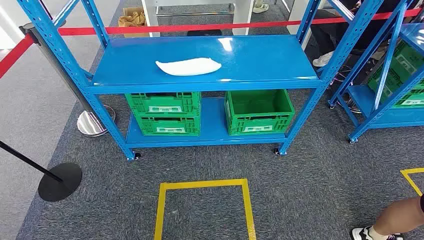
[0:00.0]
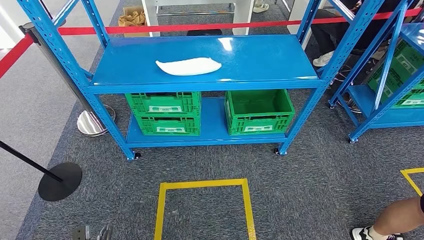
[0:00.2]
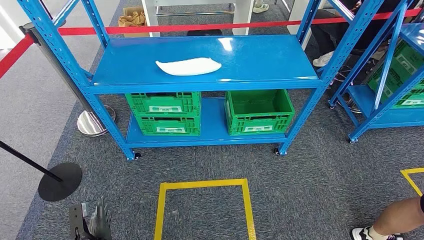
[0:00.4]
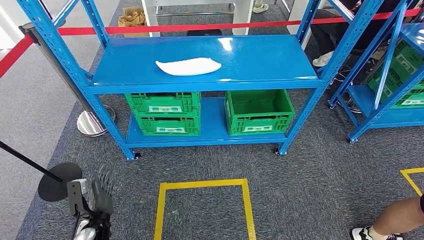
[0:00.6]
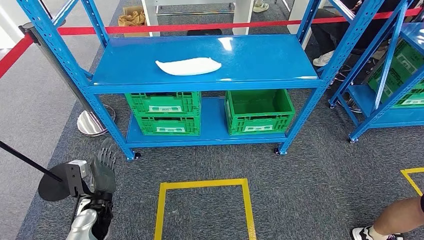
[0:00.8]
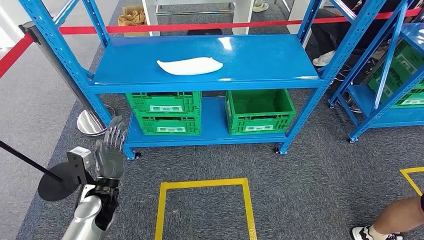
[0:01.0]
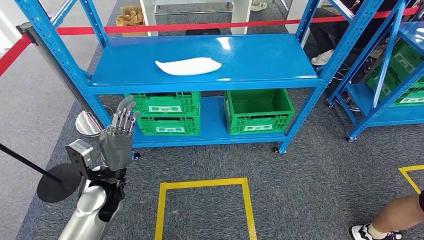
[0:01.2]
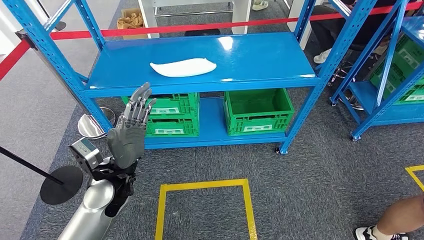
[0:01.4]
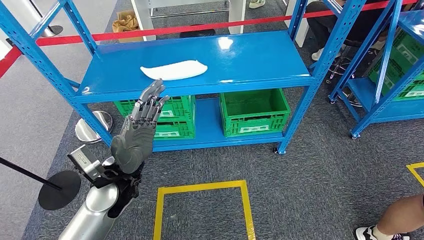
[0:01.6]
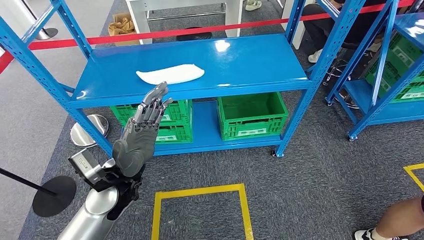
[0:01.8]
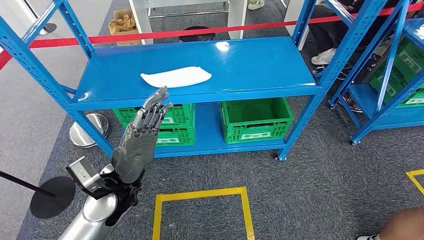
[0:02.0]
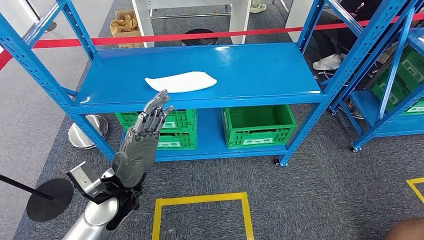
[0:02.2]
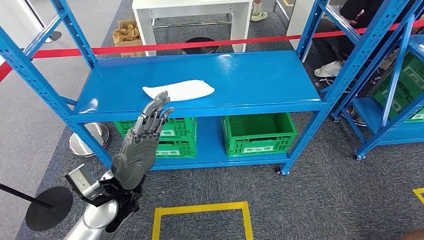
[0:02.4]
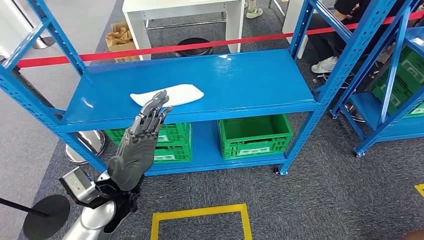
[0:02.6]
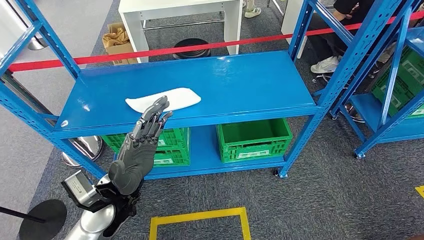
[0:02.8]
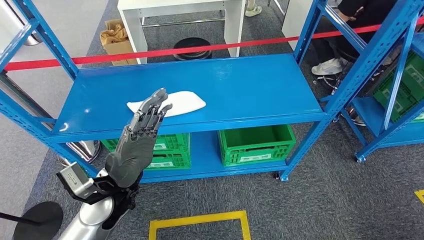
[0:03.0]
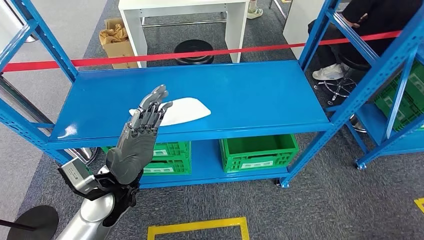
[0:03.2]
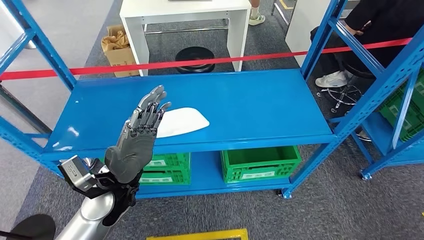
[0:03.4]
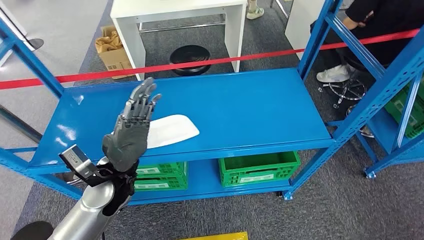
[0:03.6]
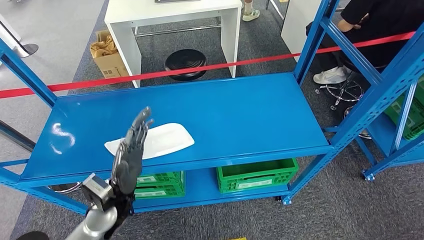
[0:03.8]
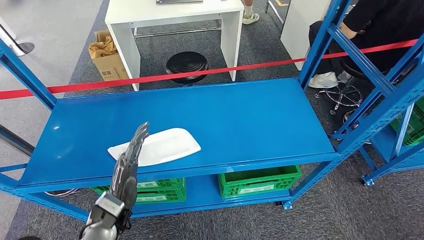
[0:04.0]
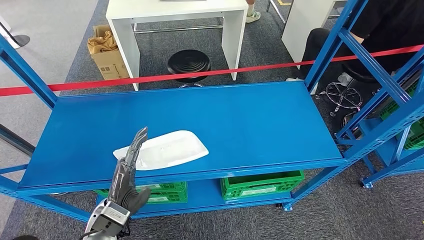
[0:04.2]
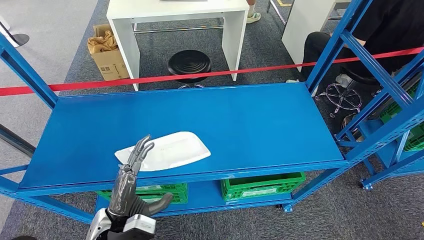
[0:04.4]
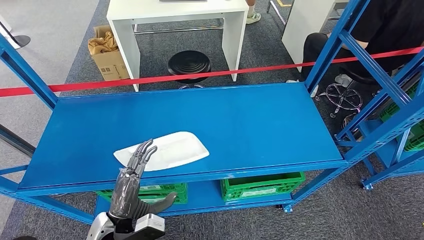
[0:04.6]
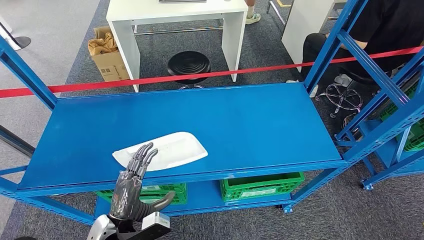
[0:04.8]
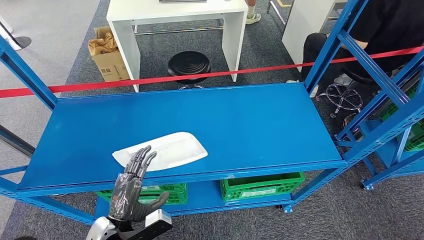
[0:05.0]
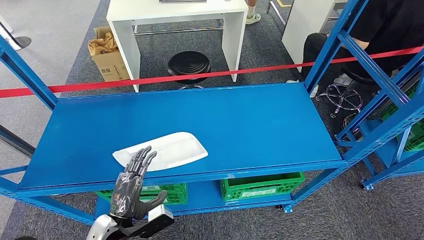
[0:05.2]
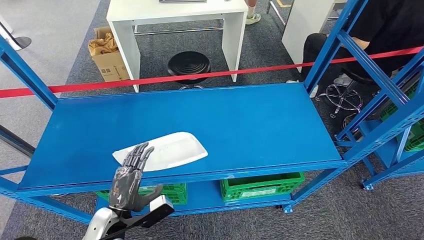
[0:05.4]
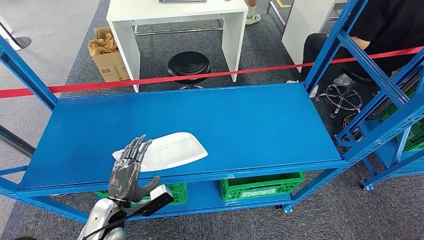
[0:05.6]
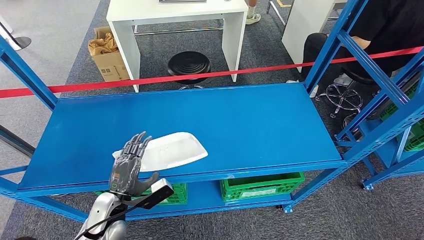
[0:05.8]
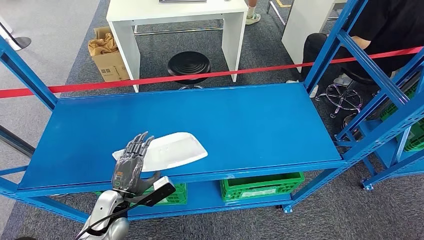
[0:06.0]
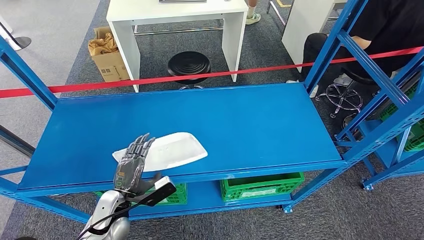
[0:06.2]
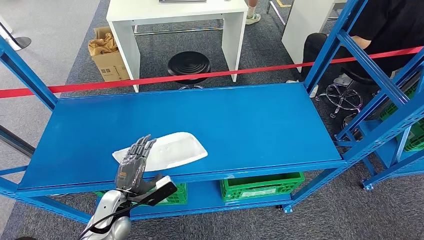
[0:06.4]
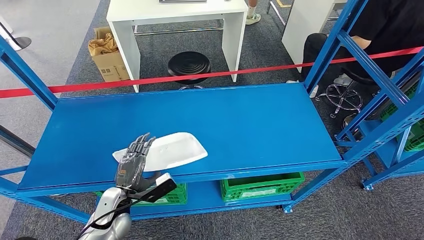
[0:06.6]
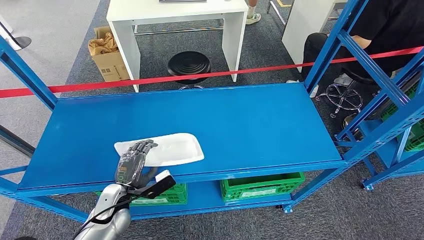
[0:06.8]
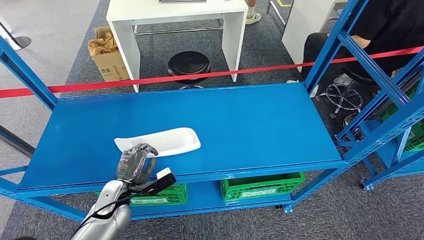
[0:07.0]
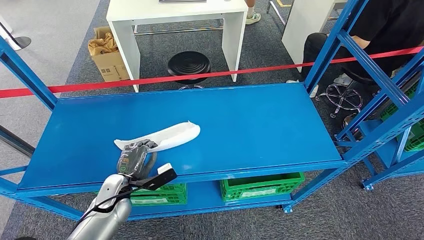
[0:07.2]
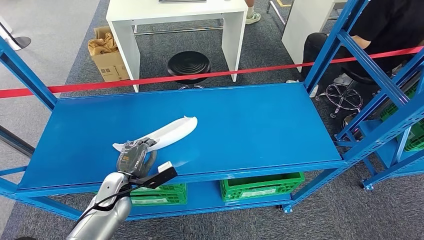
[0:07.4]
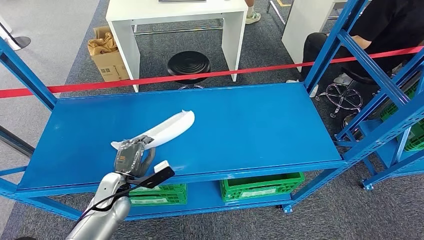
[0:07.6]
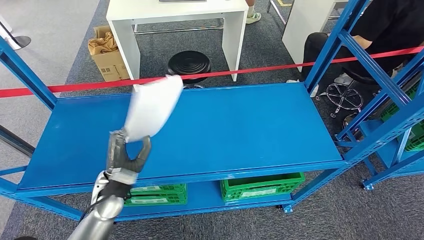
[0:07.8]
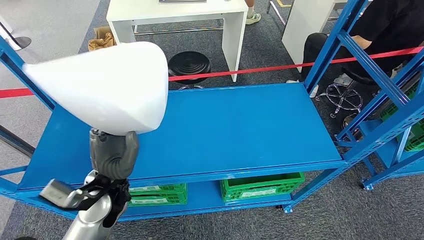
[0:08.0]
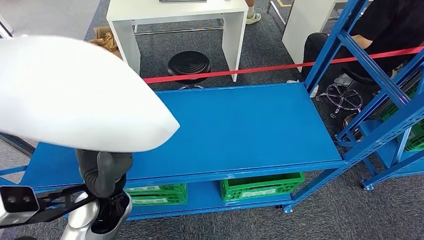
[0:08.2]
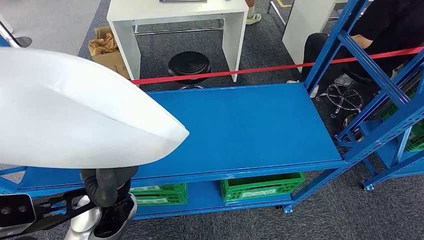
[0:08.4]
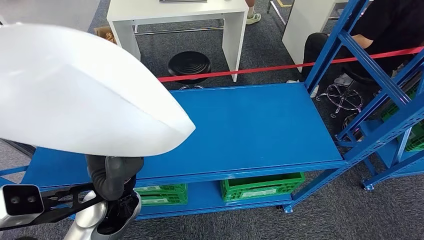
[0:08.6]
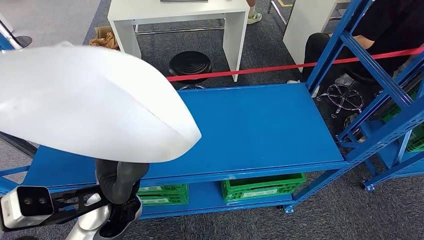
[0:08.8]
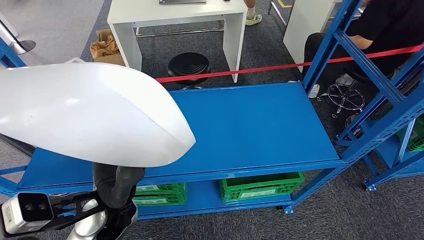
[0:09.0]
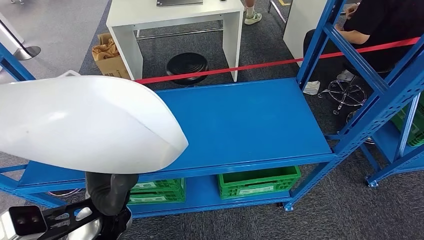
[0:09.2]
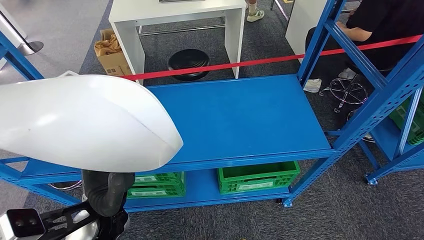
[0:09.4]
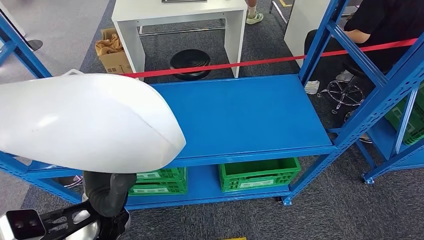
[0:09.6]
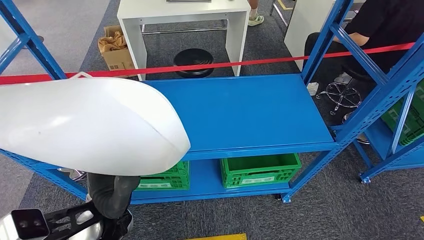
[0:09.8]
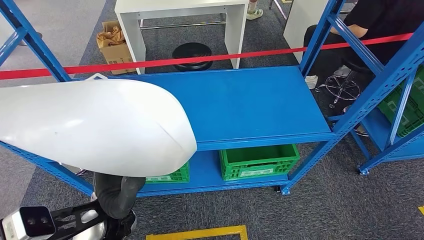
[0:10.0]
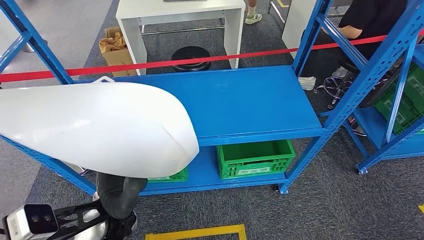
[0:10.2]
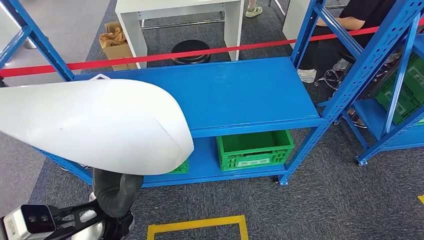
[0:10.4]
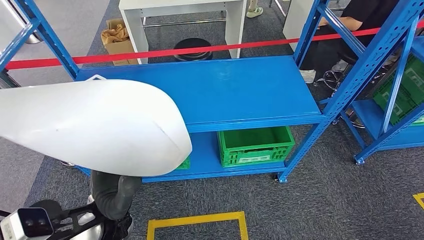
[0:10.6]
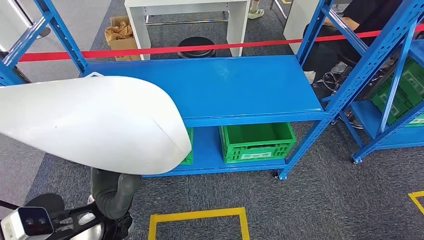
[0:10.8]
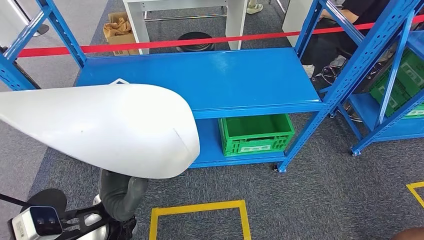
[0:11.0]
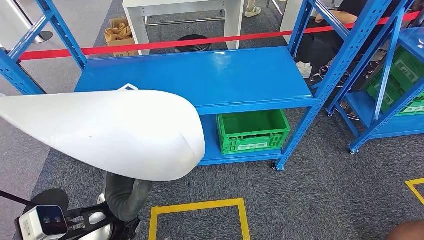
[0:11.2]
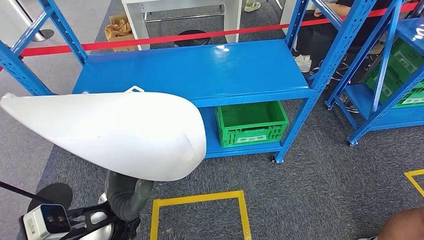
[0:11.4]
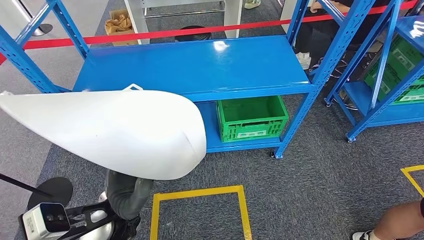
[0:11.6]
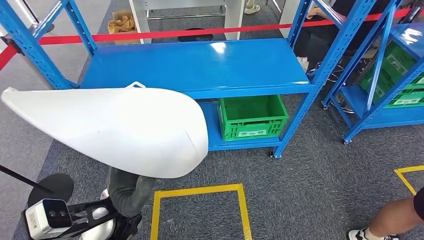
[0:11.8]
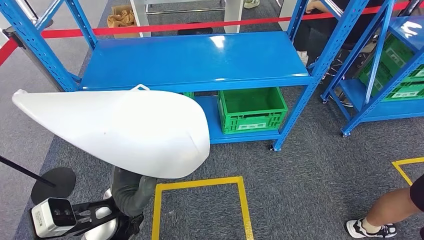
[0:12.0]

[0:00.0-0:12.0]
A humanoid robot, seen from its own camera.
Step, 0:00.0 to 0:07.0: Pick up the small component from the shelf.
0:04.4 to 0:06.0: The left hand moves forward, roughly 5 cm.
0:06.0 to 0:07.6: The left hand is displaced forward by roughly 5 cm.

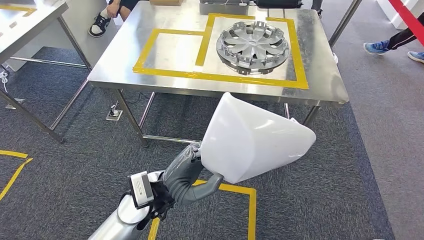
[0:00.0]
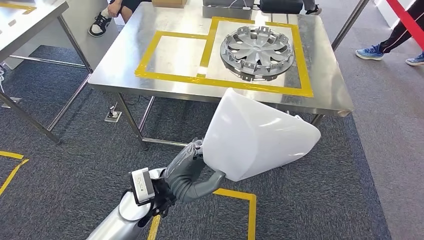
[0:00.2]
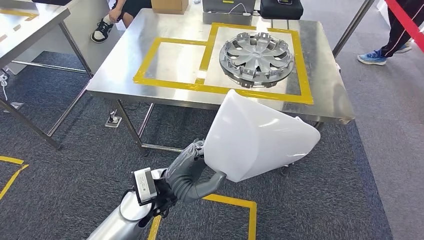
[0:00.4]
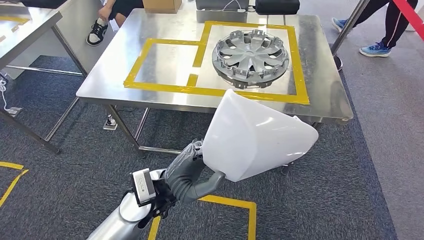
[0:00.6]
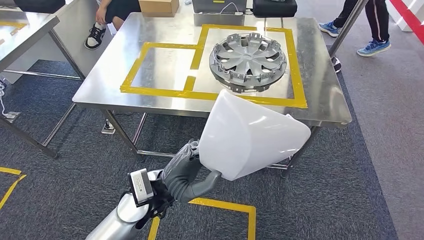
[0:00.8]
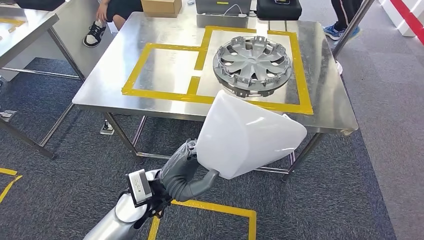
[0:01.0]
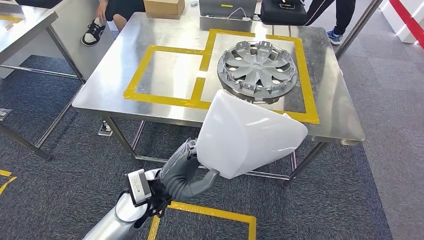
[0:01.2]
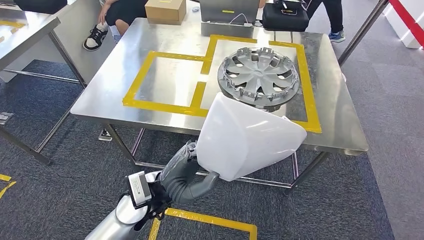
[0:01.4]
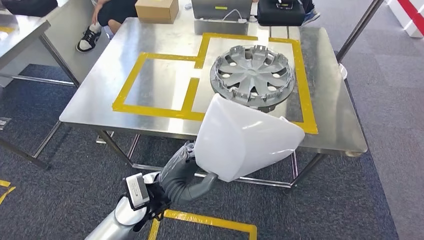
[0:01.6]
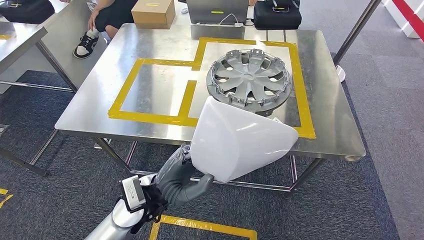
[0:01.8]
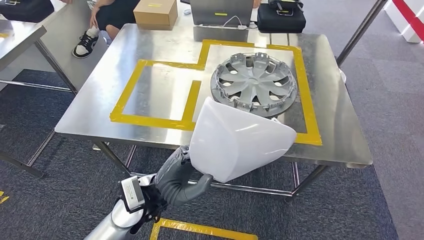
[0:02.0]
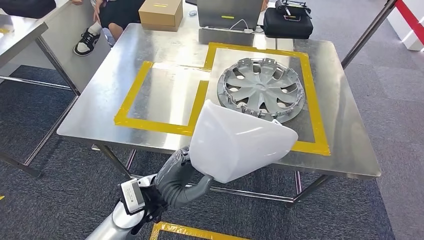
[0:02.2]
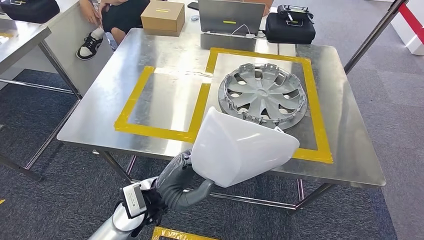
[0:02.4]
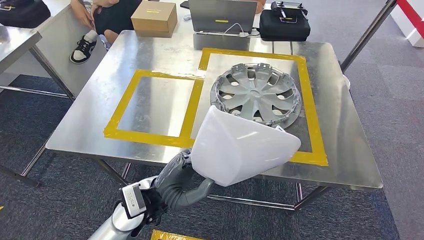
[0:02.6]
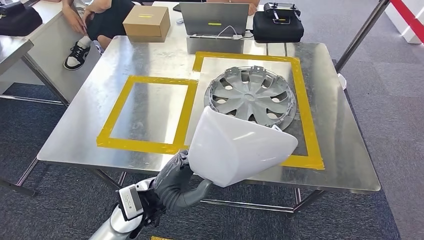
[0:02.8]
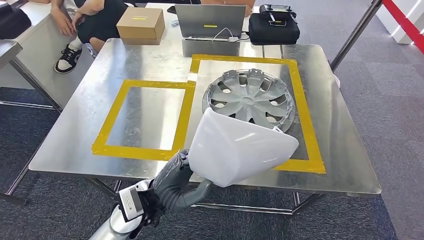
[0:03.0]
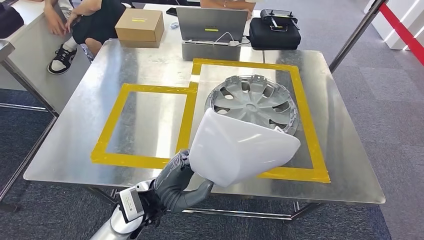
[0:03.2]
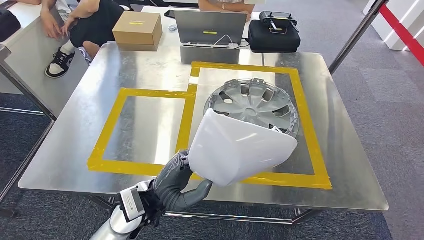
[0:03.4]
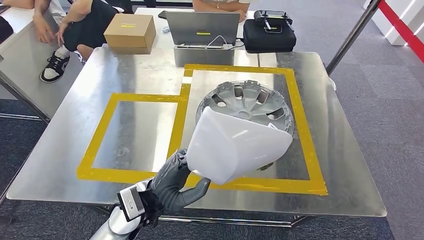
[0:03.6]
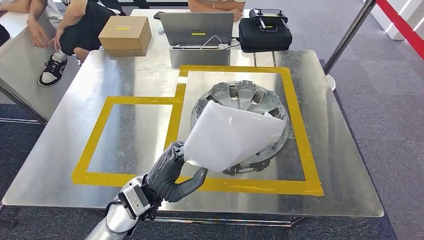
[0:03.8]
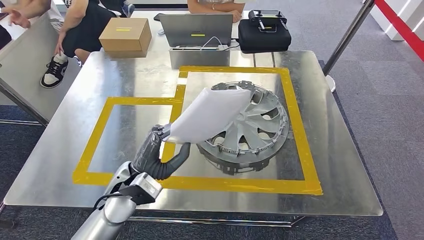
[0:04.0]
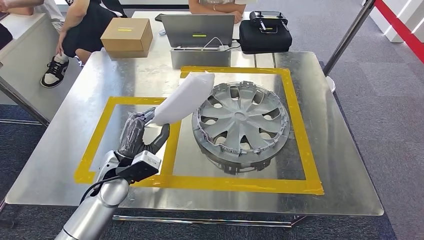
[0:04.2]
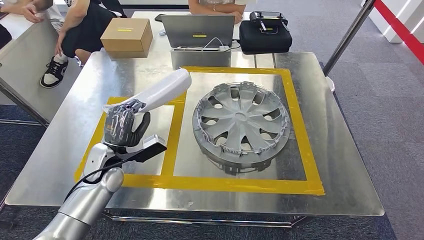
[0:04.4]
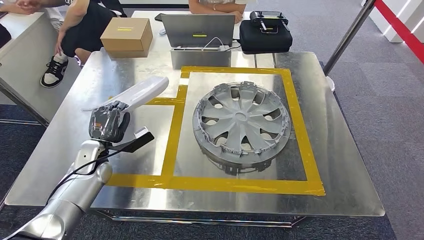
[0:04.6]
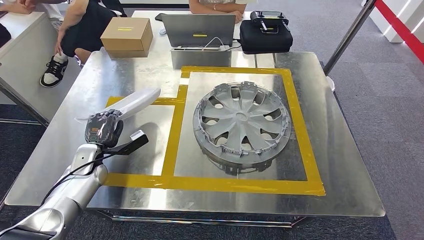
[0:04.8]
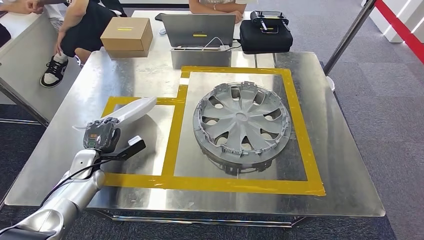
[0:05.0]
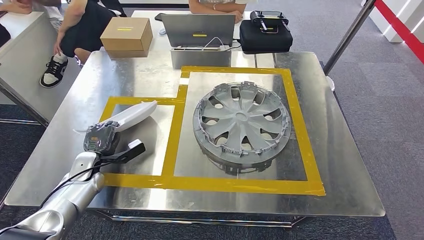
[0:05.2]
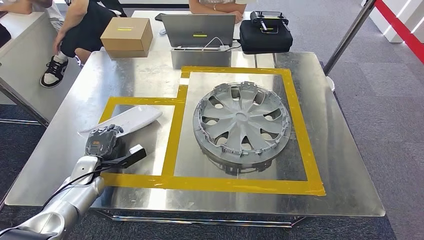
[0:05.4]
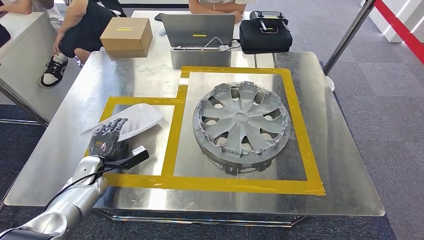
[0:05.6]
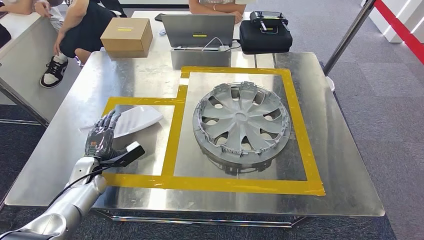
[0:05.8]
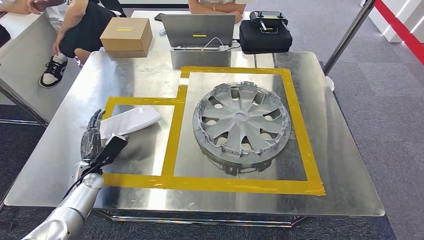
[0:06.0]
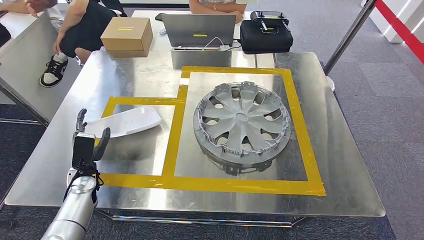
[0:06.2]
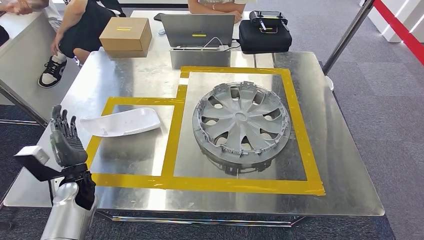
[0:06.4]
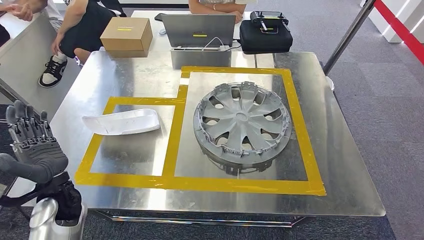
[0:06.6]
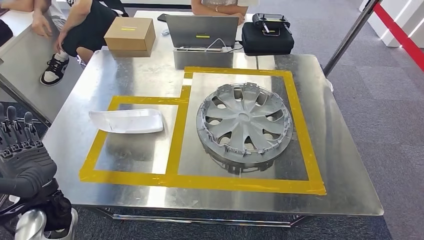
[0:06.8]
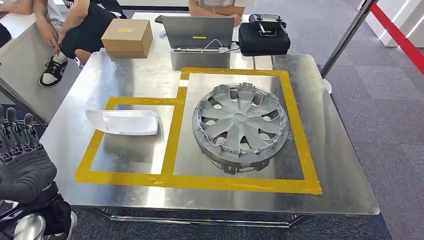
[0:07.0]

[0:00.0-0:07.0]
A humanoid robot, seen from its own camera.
Step, 0:00.0 to 0:02.0: Move the small component to the workbench.
0:04.2 to 0:05.6: The left hand shifts roughly 20 cm to the left and downward.
